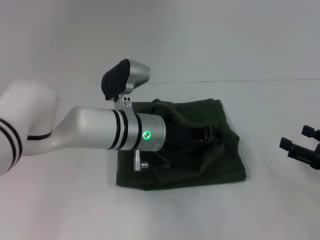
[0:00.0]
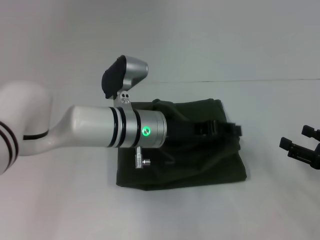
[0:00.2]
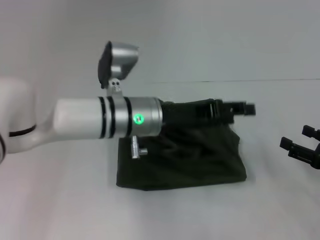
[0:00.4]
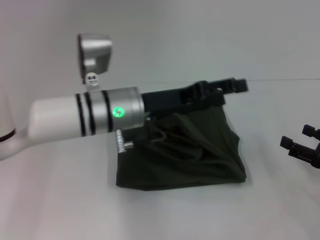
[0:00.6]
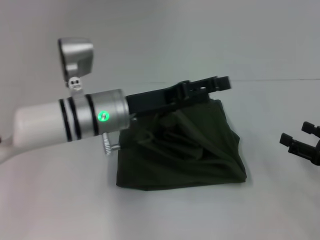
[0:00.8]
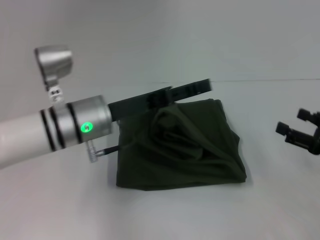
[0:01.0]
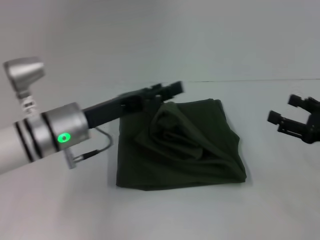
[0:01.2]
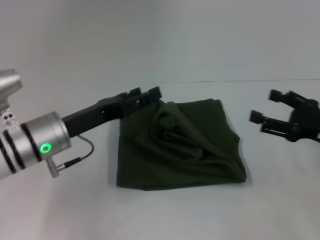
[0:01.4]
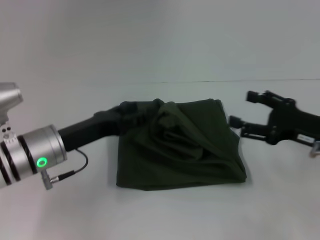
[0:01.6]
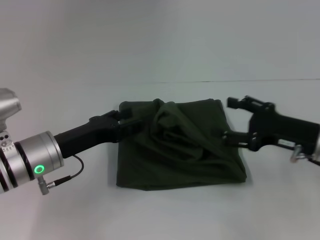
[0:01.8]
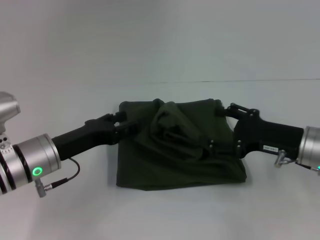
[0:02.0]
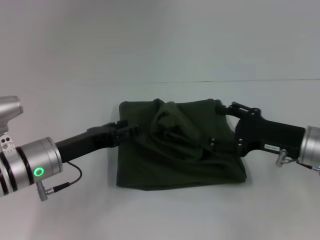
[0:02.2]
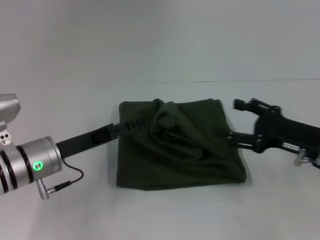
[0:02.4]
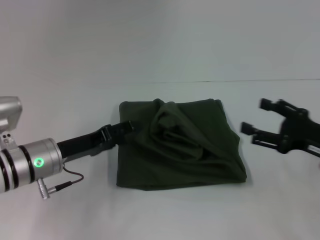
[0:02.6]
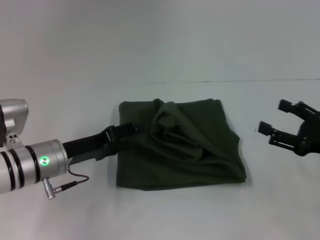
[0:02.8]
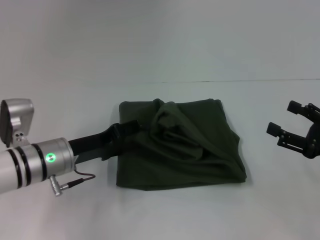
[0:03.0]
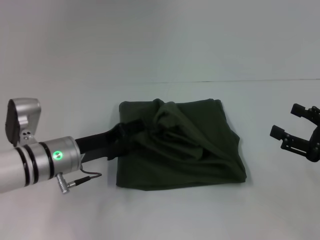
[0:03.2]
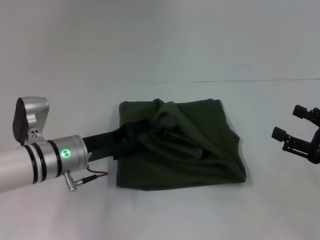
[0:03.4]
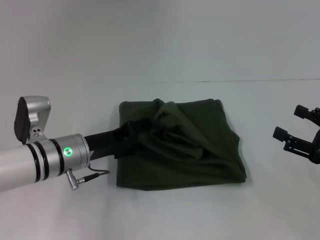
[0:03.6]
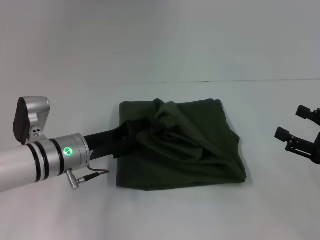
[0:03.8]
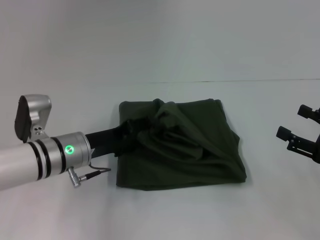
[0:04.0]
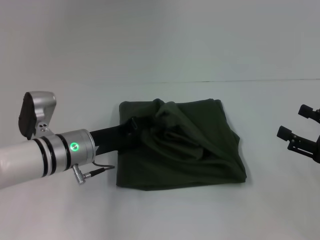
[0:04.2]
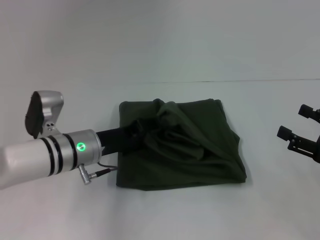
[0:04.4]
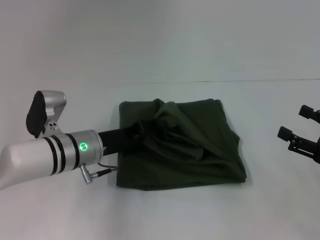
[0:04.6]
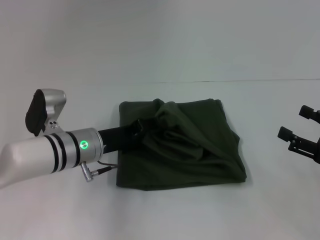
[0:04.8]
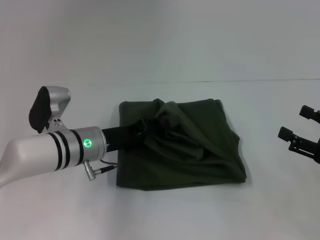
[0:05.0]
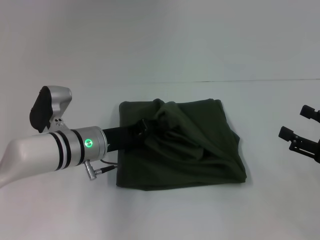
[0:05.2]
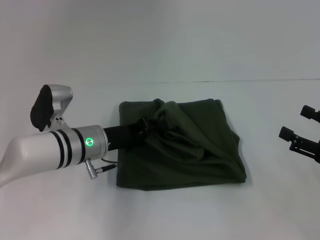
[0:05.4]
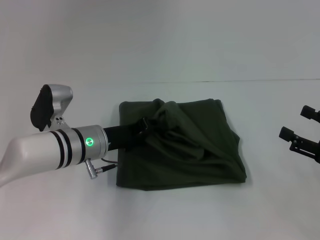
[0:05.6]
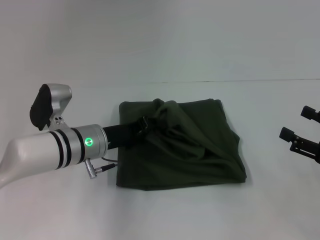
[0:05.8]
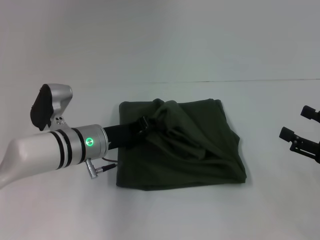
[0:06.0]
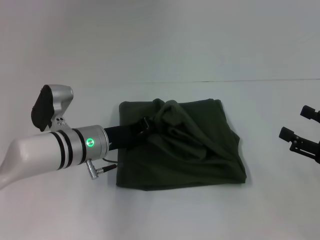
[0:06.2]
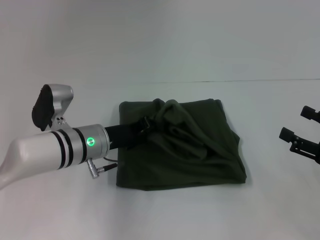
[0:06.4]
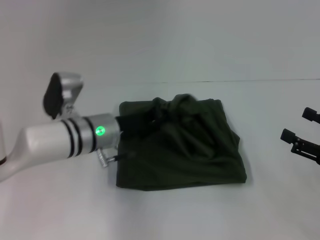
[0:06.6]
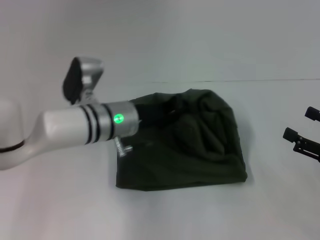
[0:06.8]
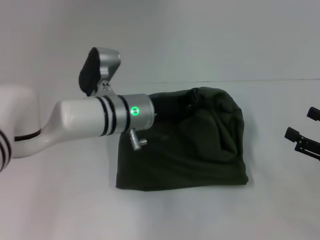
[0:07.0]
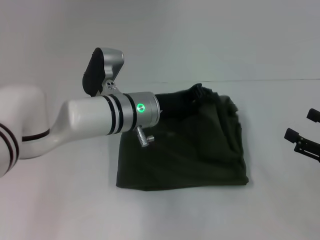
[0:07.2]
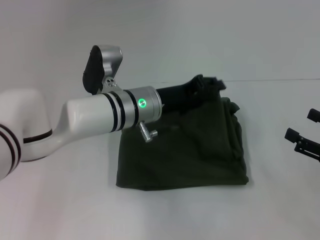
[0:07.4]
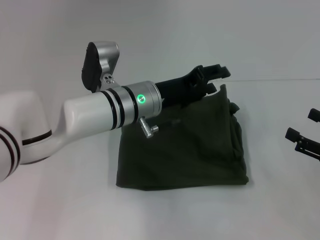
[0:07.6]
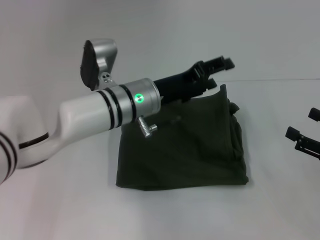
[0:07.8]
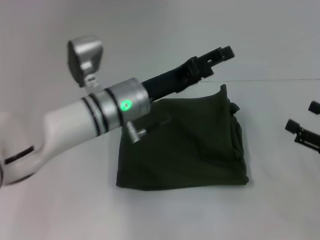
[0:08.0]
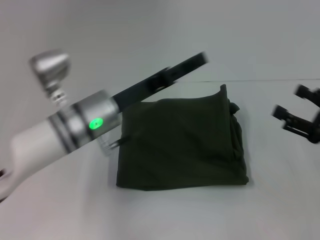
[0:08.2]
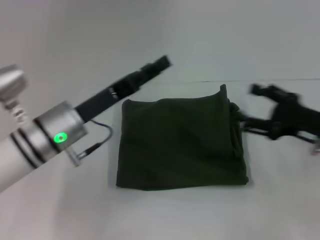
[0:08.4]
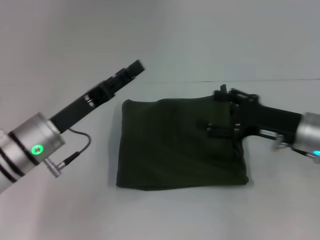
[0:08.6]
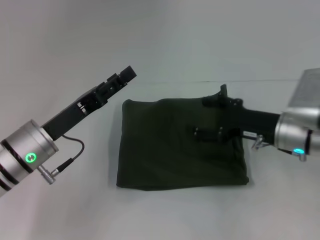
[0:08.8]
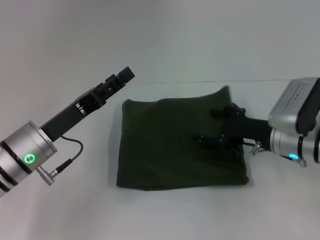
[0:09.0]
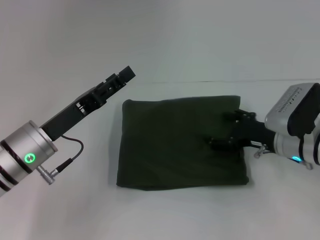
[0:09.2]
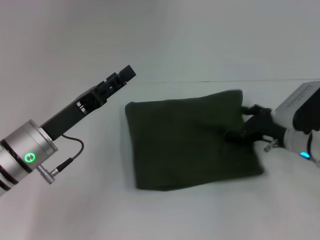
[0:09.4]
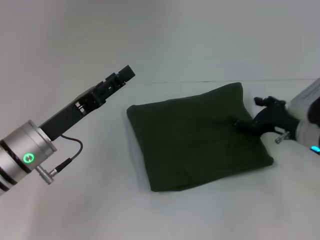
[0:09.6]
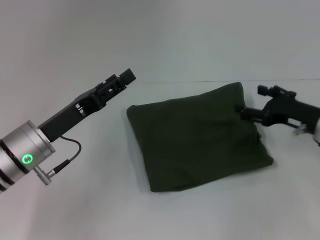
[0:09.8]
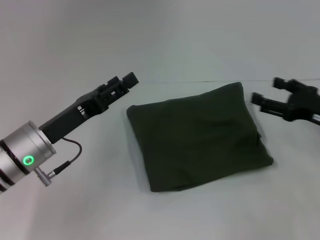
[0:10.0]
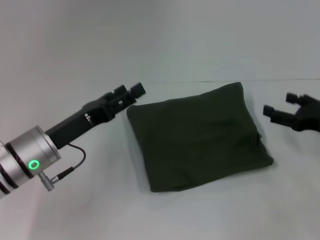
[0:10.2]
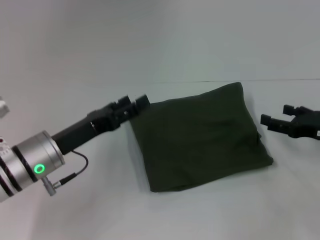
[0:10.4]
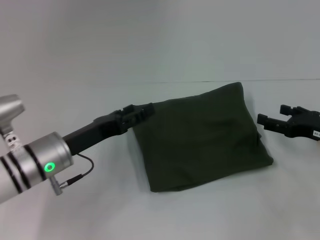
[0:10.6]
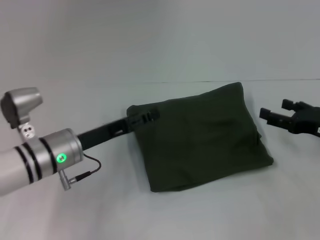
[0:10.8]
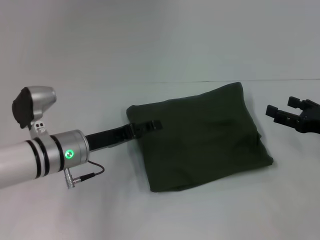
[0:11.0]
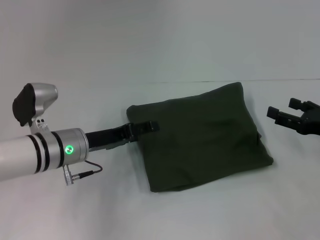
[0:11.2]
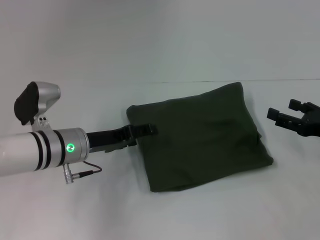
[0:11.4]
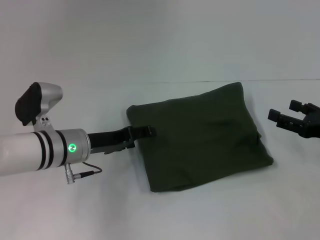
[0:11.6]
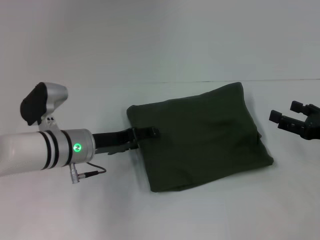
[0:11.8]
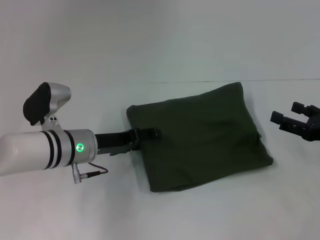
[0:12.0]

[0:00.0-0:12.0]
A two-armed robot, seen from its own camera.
0:00.0 to 0:01.6: The right gripper goes about 5 cm to the left; the left gripper shifts roughly 15 cm to the left, and opens its fingers.
0:01.6 to 0:03.0: The right gripper ends up roughly 5 cm from where it was.
0:03.0 to 0:04.4: The grippers make only small movements.
0:04.4 to 0:06.0: The left gripper closes.
0:06.0 to 0:07.6: The left gripper moves to the right and upward, about 10 cm.
0:07.6 to 0:09.0: The right gripper travels to the left and forward by about 15 cm; the left gripper goes some 15 cm to the left and backward, and opens up.
0:09.0 to 0:10.4: The right gripper moves to the right, about 10 cm.
0:10.4 to 0:12.0: The left gripper goes roughly 5 cm forward.

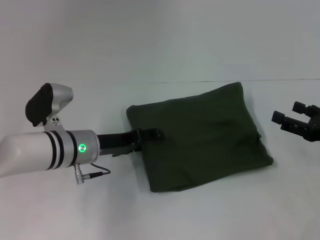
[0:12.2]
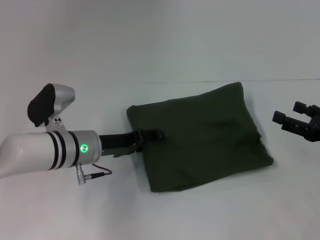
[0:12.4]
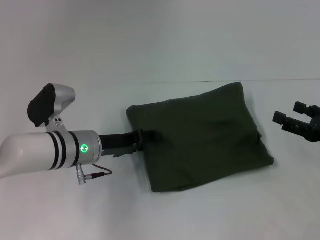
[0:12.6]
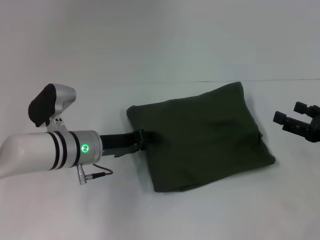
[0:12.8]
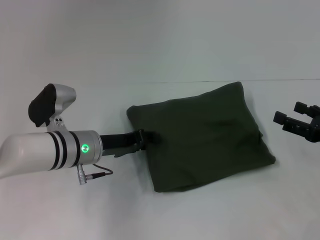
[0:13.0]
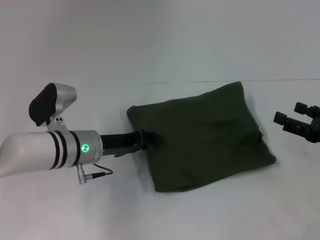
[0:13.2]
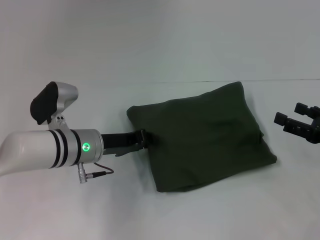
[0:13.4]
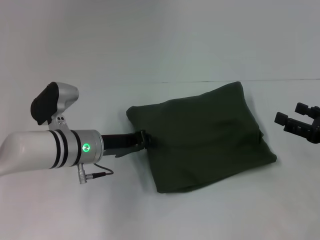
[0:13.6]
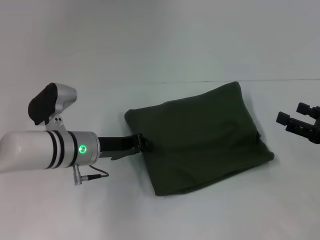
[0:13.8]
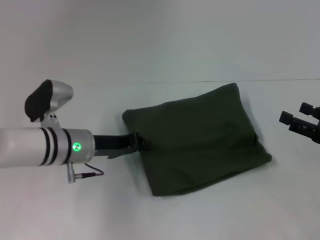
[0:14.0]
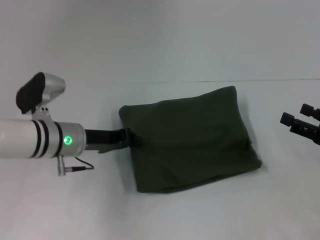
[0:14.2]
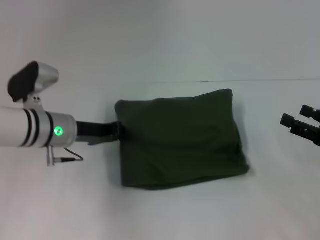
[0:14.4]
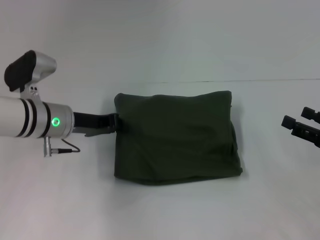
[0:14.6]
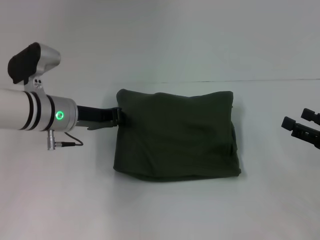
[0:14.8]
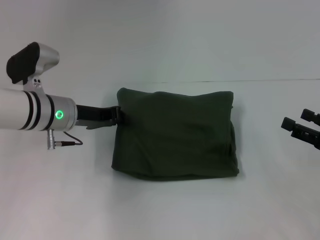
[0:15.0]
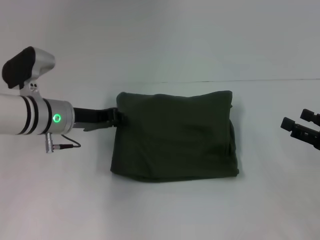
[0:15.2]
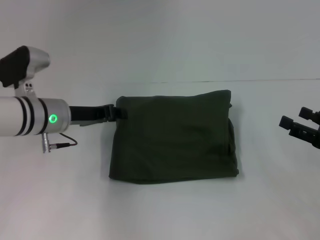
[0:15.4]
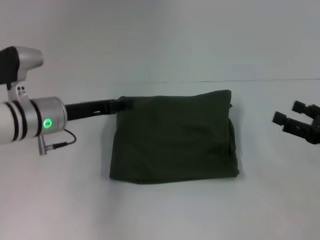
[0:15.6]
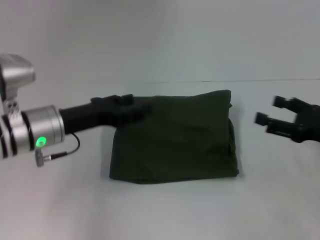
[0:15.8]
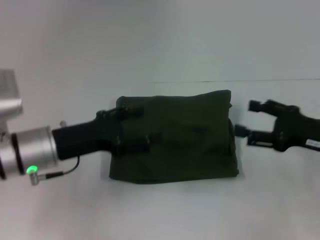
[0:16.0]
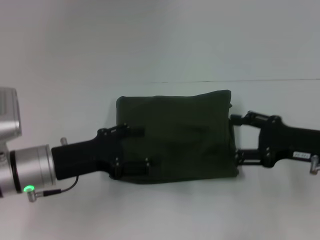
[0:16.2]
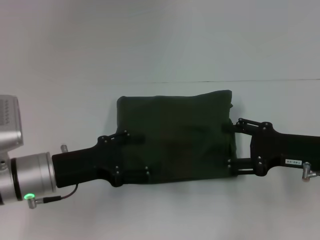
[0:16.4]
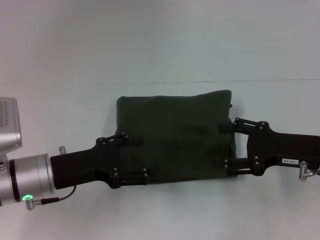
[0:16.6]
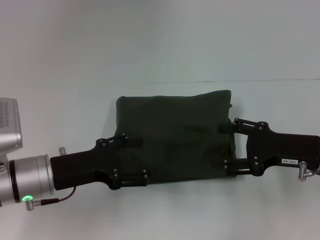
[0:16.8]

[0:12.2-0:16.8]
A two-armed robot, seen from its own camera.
0:12.2 to 0:13.8: The left gripper closes up.
0:13.8 to 0:15.2: The left gripper ends up some 5 cm from where it was.
0:15.2 to 0:16.8: The left gripper shifts roughly 10 cm backward, and opens. Meanwhile the right gripper shifts approximately 10 cm to the left.

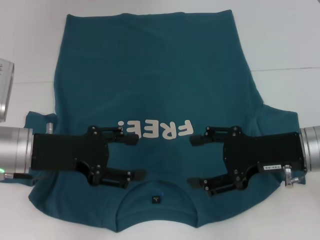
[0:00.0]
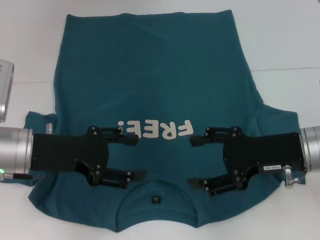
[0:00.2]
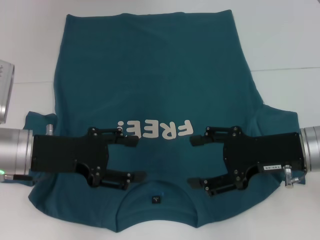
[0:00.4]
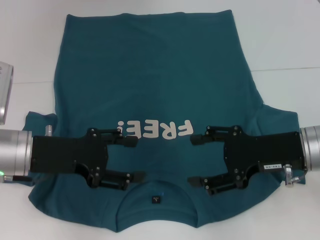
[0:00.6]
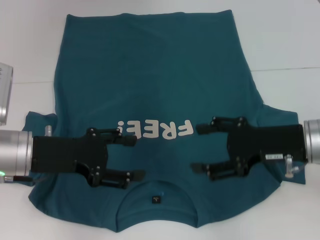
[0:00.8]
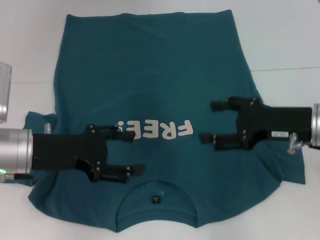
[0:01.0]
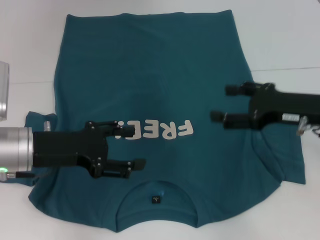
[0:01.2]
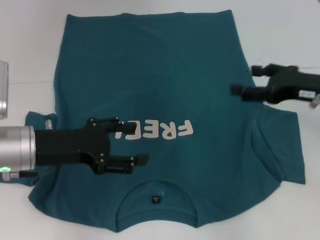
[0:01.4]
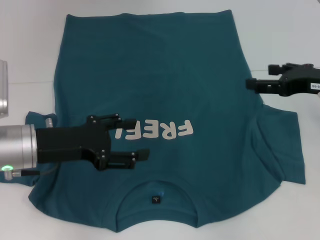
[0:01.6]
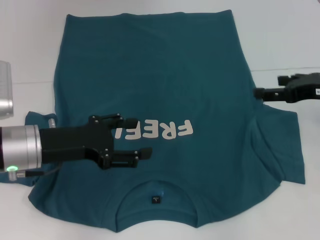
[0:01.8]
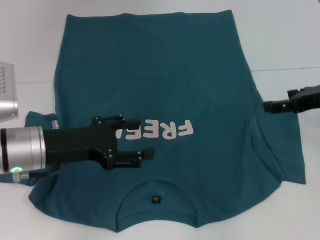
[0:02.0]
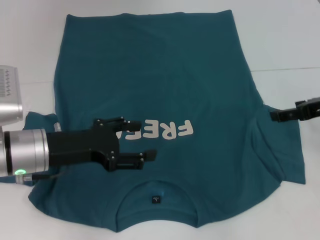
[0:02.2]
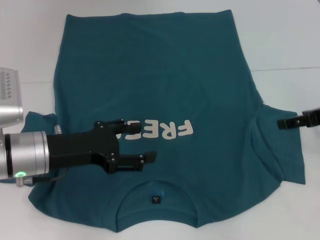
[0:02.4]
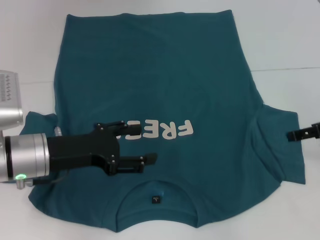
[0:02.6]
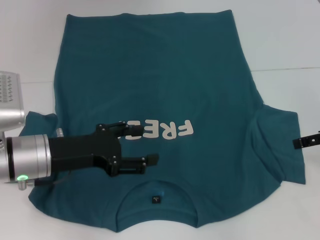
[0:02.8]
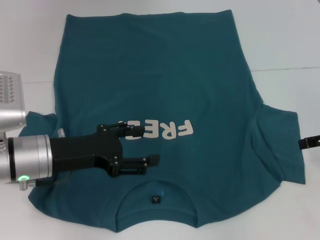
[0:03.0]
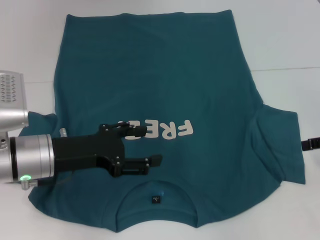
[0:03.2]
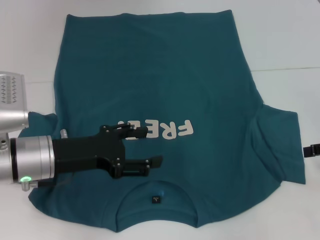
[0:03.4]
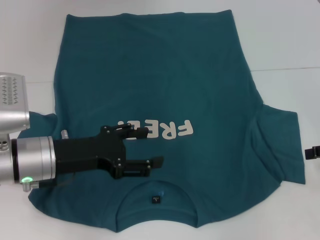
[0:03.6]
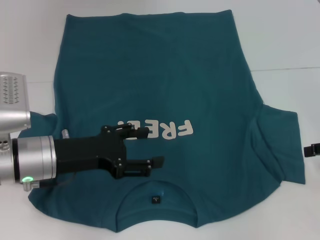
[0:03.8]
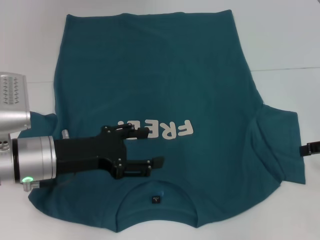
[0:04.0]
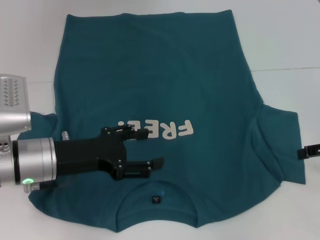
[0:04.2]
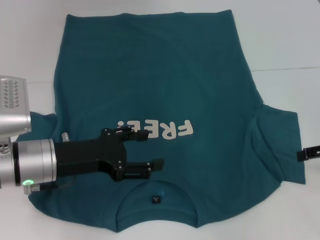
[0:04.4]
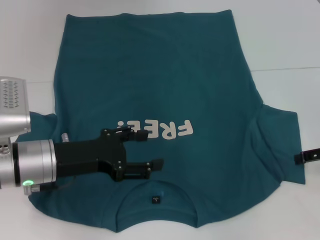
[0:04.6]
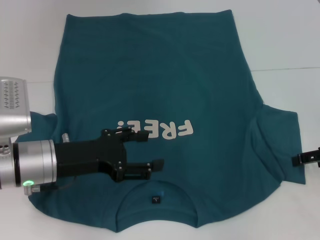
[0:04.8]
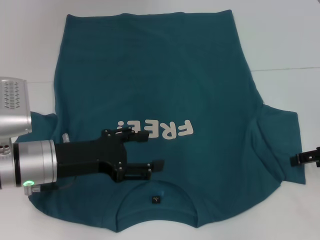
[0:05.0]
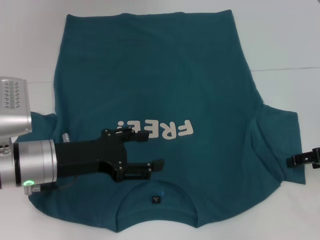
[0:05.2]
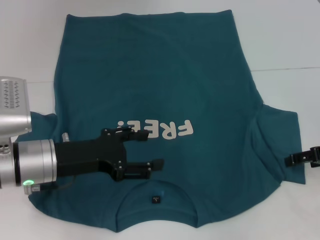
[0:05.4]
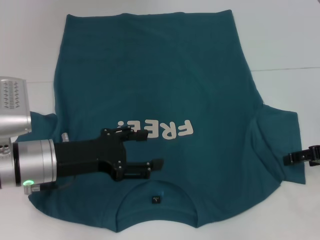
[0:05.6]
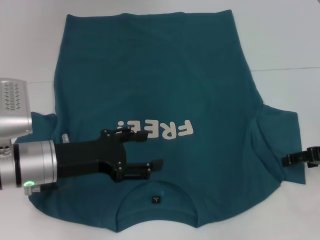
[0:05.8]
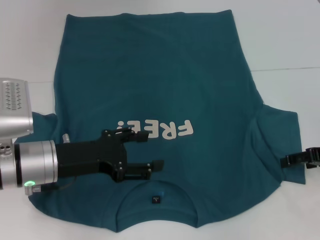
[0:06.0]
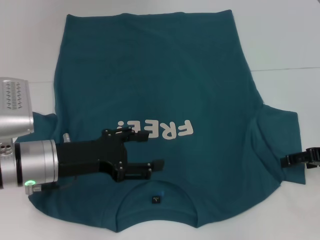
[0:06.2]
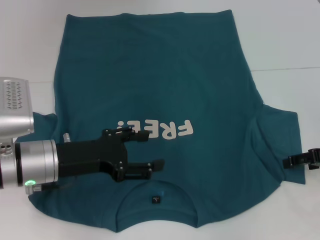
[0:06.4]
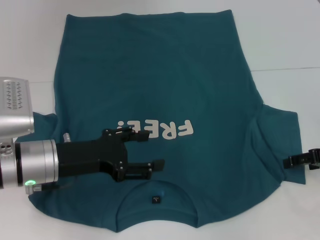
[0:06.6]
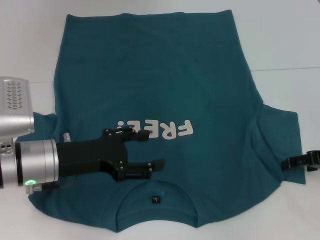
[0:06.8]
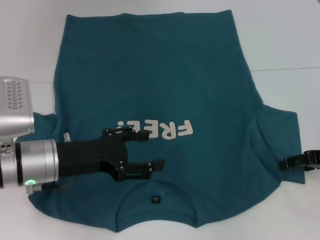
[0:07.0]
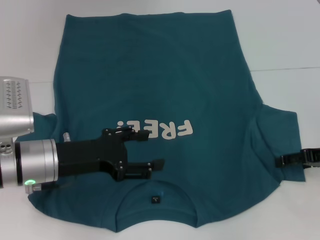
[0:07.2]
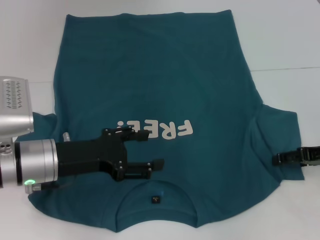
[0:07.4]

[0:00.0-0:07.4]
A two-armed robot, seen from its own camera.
0:00.0 to 0:01.4: The right gripper is displaced to the right by roughly 5 cm.
0:01.4 to 0:03.0: The right gripper heads to the right, covering some 5 cm.
0:03.0 to 0:07.4: The grippers make only small movements.
